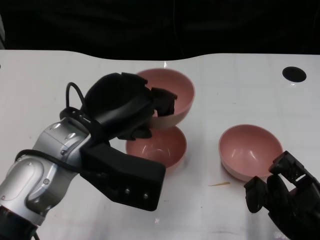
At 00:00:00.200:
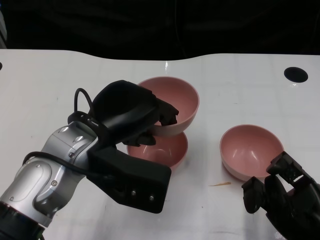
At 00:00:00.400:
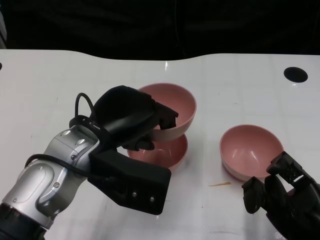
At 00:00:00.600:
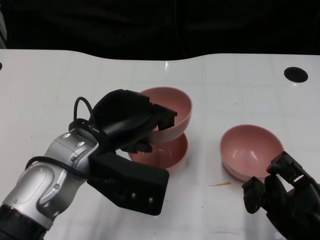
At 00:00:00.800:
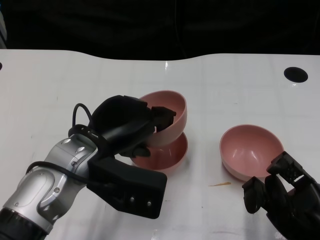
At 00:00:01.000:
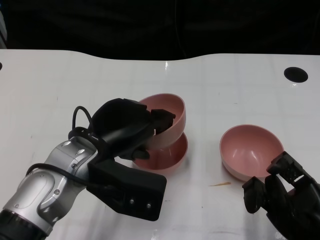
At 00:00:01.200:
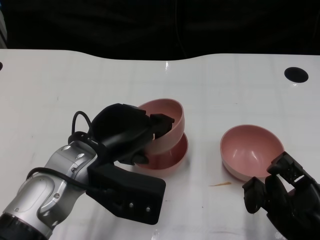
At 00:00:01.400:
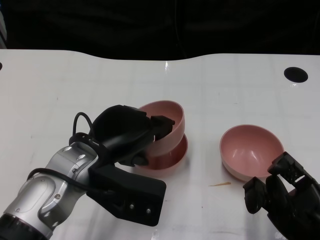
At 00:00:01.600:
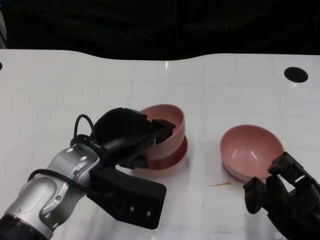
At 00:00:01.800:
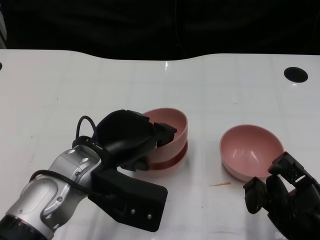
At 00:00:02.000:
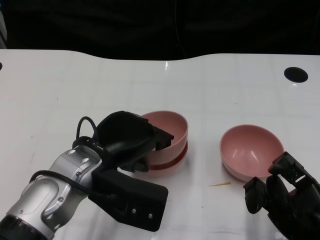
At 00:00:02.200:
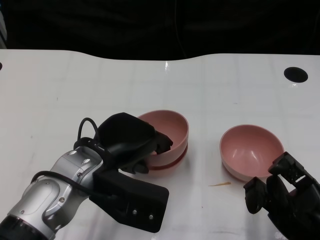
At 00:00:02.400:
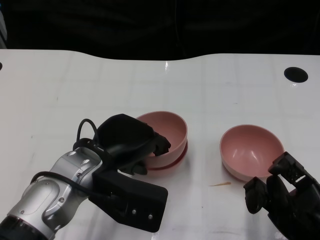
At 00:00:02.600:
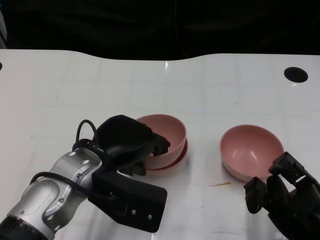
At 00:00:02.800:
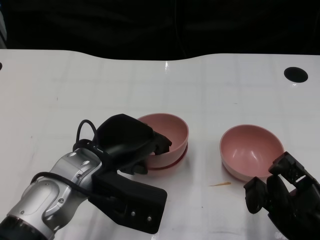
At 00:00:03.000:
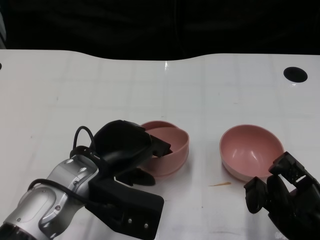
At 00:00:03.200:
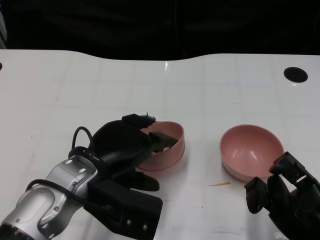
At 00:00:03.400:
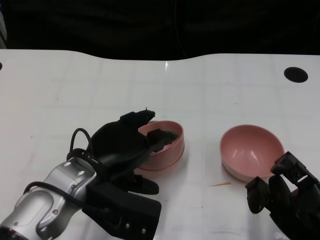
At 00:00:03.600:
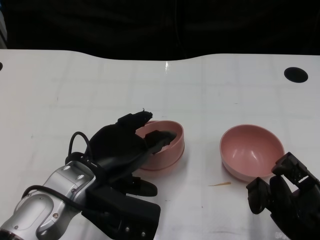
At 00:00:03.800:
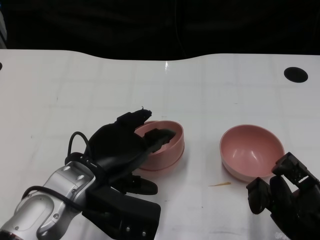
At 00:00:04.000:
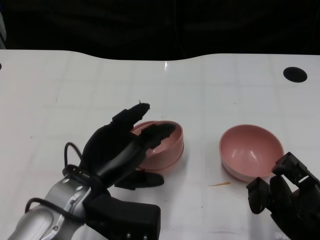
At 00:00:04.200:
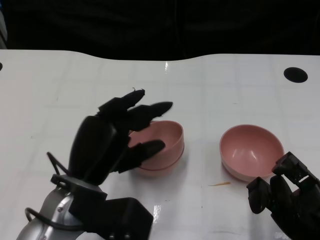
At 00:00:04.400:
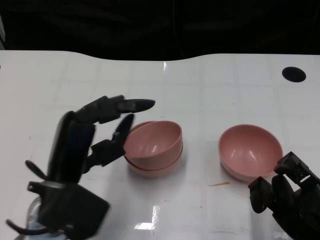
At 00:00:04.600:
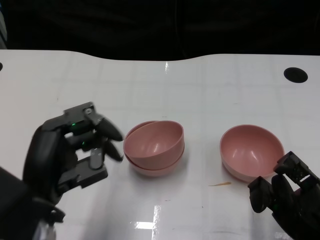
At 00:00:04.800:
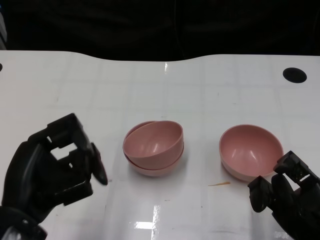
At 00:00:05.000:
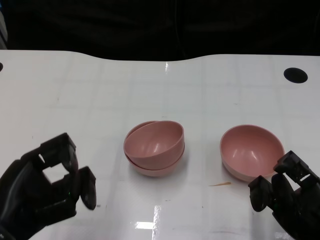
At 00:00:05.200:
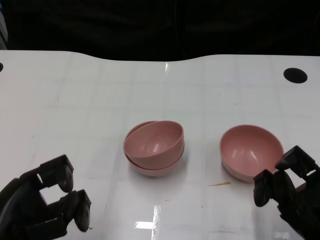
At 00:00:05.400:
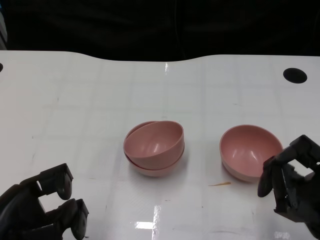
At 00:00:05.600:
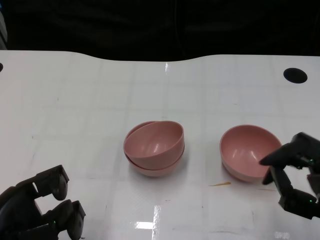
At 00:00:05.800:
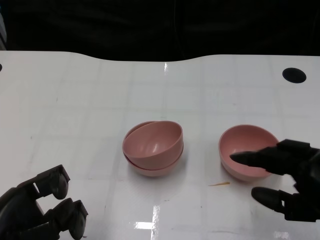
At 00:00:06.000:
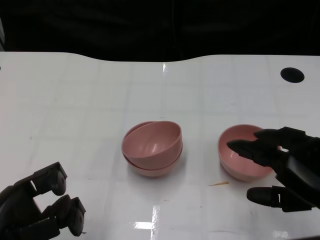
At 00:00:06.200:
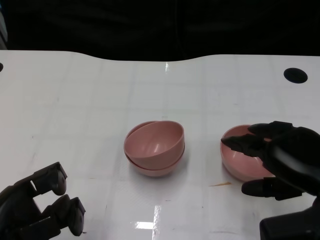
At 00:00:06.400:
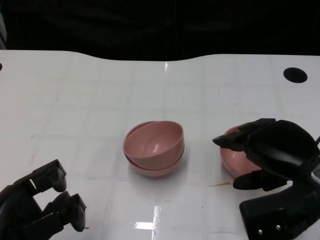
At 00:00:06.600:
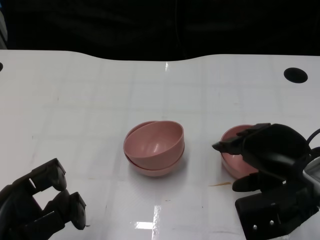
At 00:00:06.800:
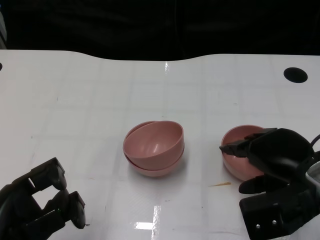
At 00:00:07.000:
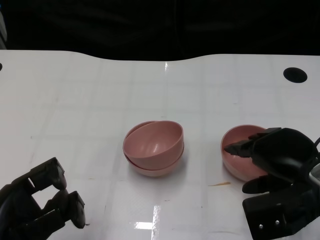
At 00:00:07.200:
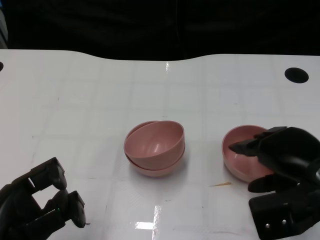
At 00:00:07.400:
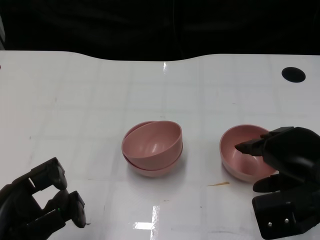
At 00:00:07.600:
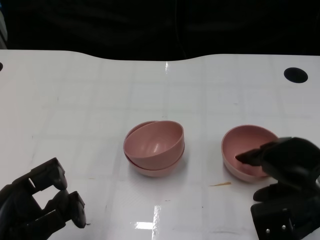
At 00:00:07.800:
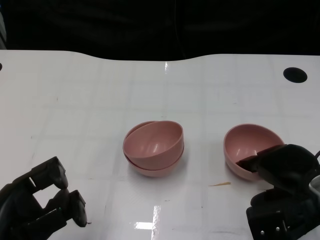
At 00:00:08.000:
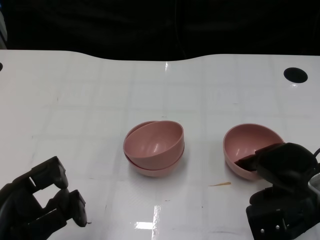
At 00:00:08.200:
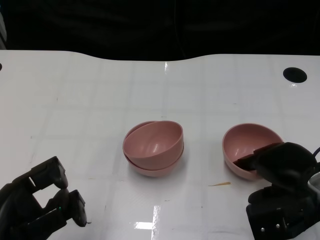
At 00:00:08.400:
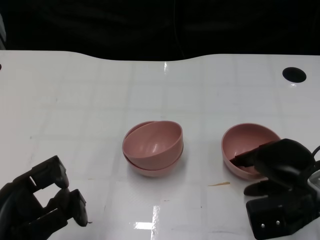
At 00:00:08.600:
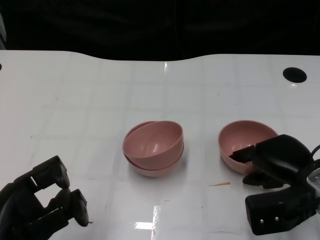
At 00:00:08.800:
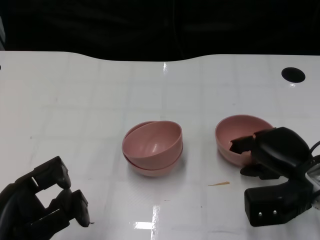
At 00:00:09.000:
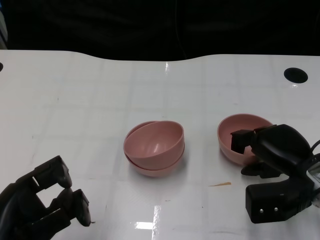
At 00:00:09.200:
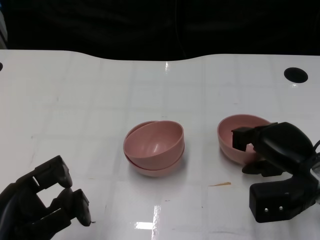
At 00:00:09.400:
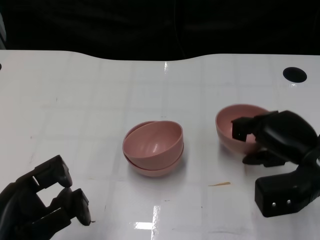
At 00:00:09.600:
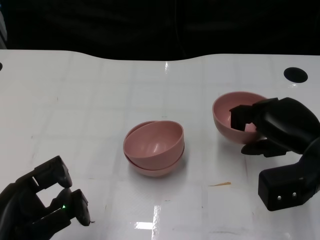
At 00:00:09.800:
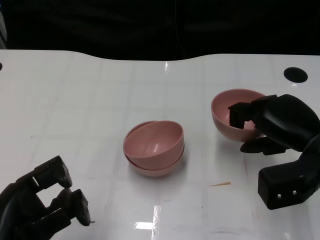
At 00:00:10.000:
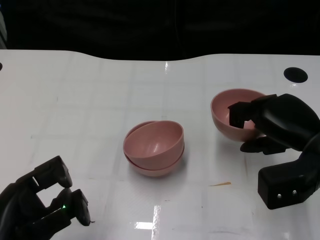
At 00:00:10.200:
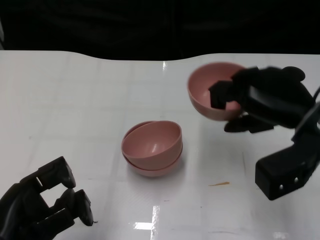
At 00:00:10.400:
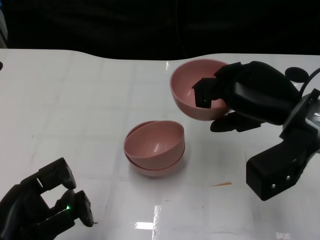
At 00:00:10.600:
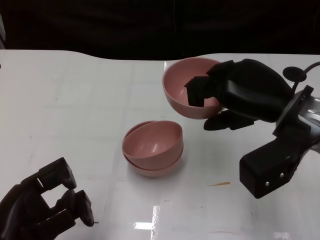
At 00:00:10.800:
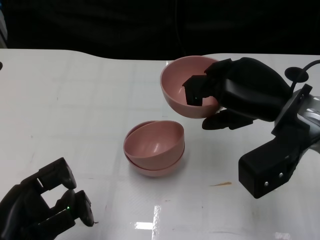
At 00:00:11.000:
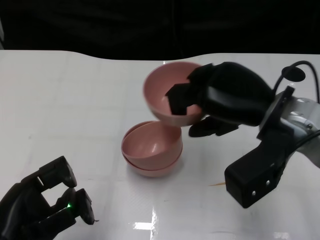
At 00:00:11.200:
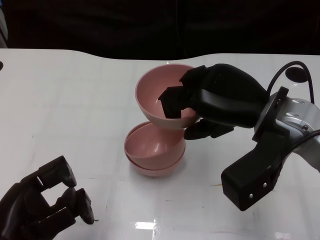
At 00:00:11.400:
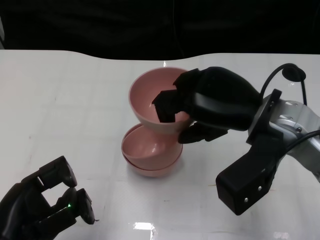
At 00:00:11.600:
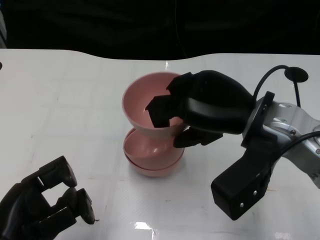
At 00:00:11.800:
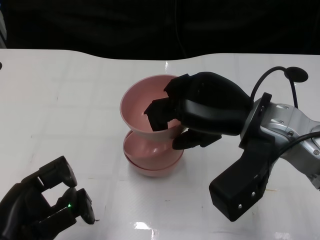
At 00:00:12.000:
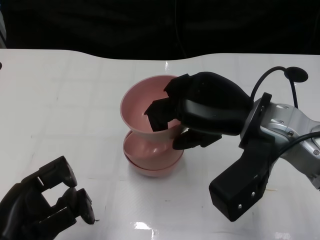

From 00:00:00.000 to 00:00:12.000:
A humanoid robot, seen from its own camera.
Task of the whole recording: Pick up the bowl on one side of the table and place it on top of the middle bowl, then pick up the bowl on the other side of the table and place it on top of the middle bowls.
Step, from 00:00:00.000 to 00:00:03.800: Place the bowl on the left onto the bowl in the middle with left gripper.
Step, from 00:00:04.000 to 00:00:09.400: Grasp the bowl on the right with the right gripper.
From 00:00:01.600 to 00:00:03.000: The hands make only small movements.
From 00:00:03.000 to 00:00:04.400: The left hand shifts by roughly 5 cm.
From 00:00:04.400 to 00:00:06.000: The right hand is displaced upward by approximately 10 cm, while the left hand travels to the left and backward by roughly 10 cm.
From 00:00:06.000 to 00:00:07.600: The right hand moves forward, roughly 5 cm.
From 00:00:07.600 to 00:00:09.000: The right hand shifts by some 5 cm.
From 00:00:09.000 to 00:00:10.400: The right hand moves upward, about 10 cm.
From 00:00:10.400 to 00:00:12.000: The right hand goes some 5 cm to the left.

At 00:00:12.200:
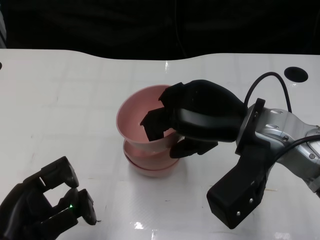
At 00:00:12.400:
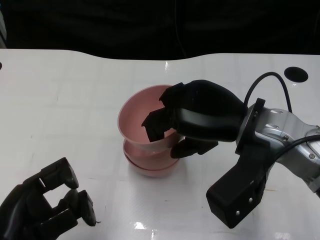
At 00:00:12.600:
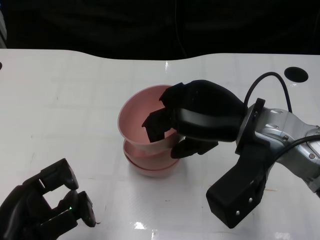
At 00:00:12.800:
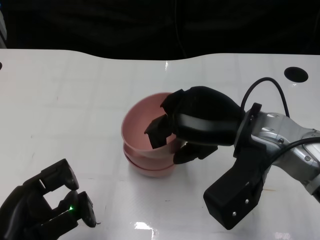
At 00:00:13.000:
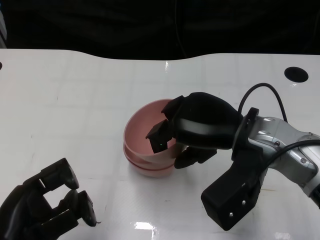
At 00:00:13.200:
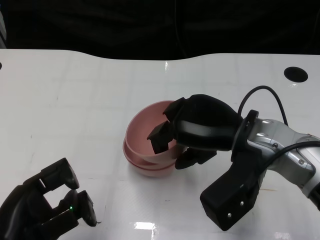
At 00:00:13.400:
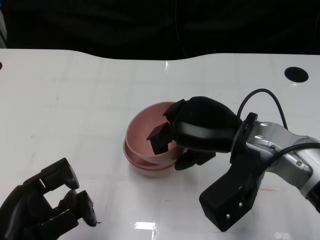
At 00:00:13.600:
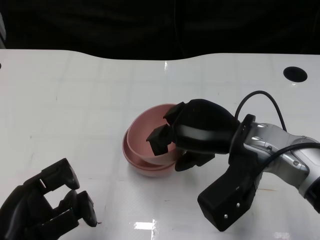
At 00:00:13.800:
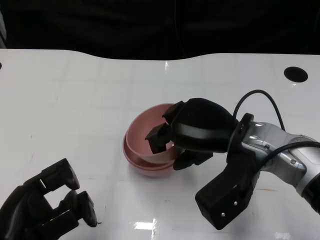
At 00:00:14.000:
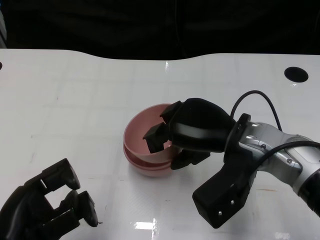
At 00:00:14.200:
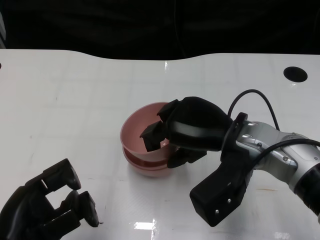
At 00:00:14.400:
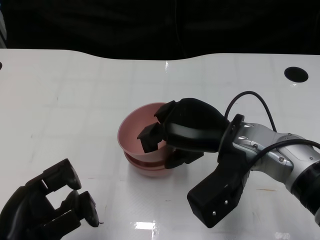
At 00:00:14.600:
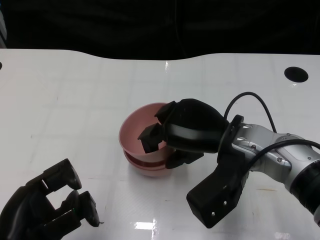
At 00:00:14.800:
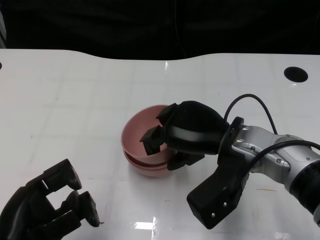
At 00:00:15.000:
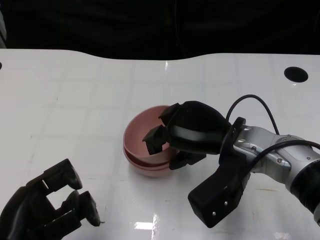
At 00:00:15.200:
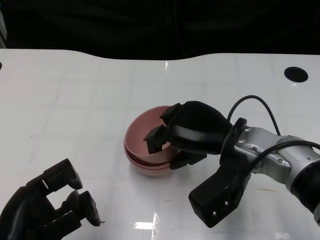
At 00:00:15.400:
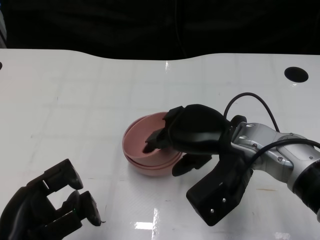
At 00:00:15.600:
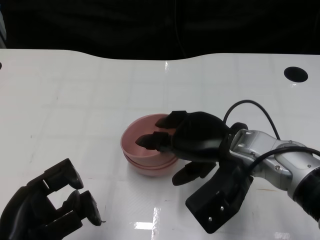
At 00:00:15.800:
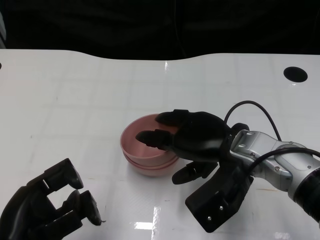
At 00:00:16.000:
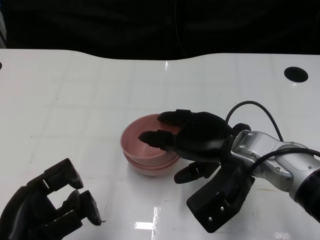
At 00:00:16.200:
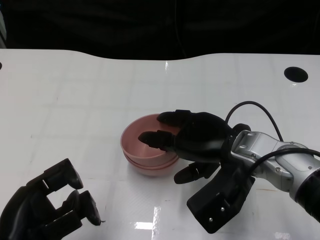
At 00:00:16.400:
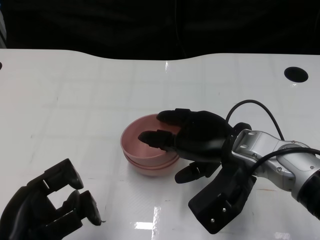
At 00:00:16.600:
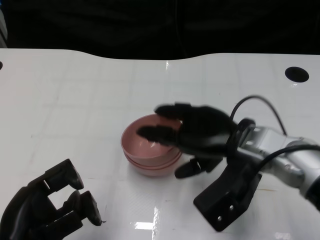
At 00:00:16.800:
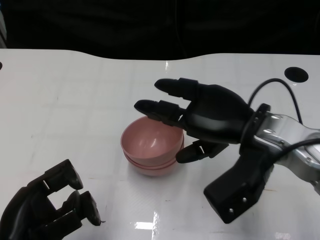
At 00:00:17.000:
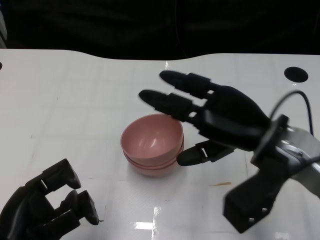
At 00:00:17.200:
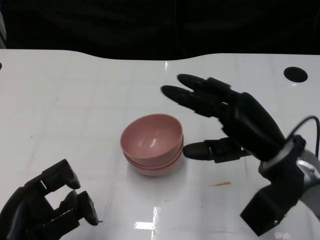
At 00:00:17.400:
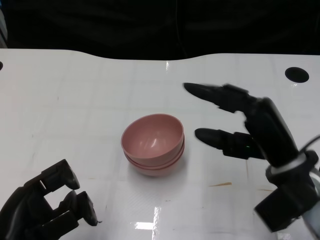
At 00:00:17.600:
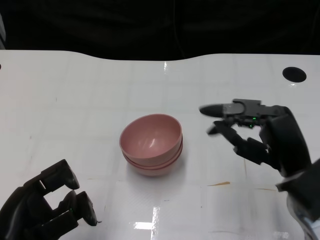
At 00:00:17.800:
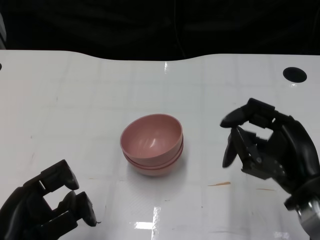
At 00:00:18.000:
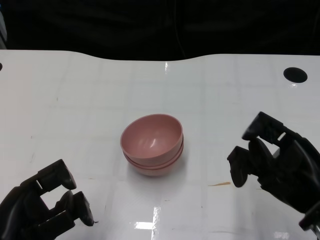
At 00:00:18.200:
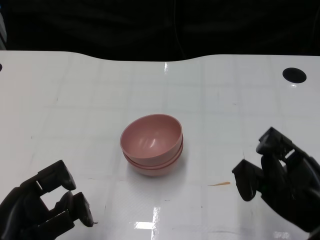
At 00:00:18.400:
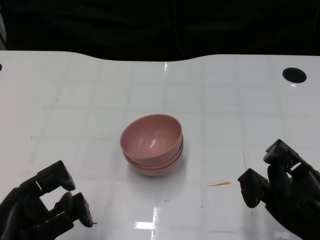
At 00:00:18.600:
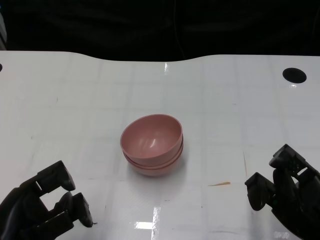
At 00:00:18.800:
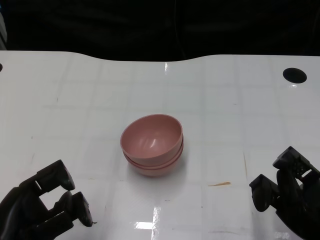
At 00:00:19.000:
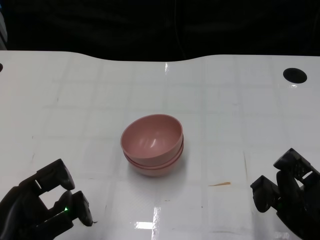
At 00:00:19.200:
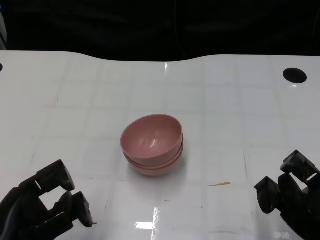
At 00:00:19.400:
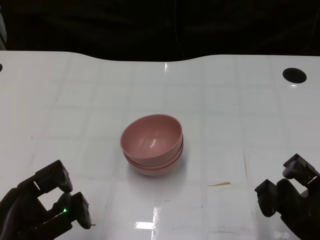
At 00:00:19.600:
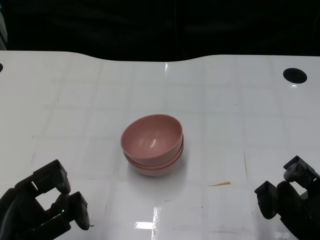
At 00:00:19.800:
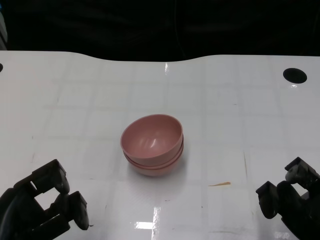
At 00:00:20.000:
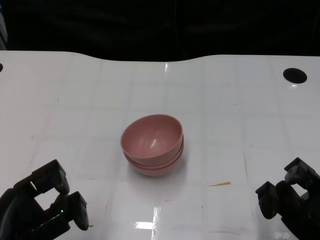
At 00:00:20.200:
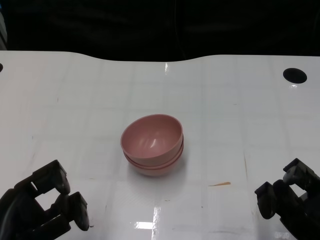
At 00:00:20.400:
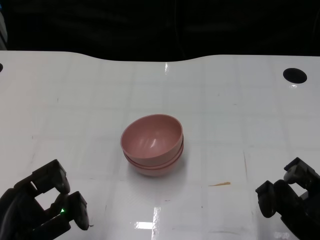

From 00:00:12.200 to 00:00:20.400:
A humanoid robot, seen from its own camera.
Task of the whole recording: Pick up the bowl on one side of the table and place it on top of the middle bowl, then pick up the bowl on the other side of the table and place it on top of the middle bowls.
Step, from 00:00:12.200 to 00:00:16.400: Place the bowl on the right onto the bowl in the middle with right gripper.
From 00:00:12.200 to 00:00:13.800: The hands move only a little.
From 00:00:13.800 to 00:00:15.400: The hands stay close to where they were, moving slightly.
From 00:00:15.400 to 00:00:17.200: The right hand moves to the right, roughly 5 cm.
From 00:00:17.200 to 00:00:18.800: The right hand shifts about 15 cm backward, to the right and downward.
From 00:00:18.800 to 00:00:20.400: The hands make only small movements.
